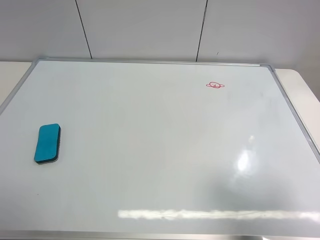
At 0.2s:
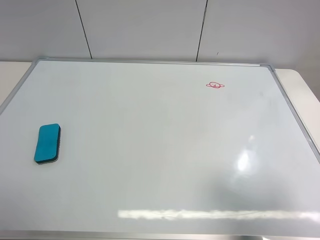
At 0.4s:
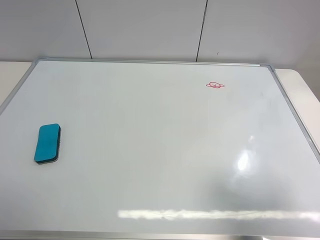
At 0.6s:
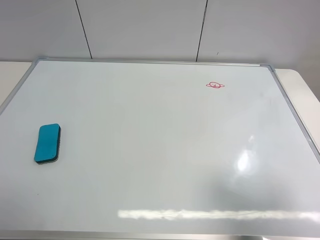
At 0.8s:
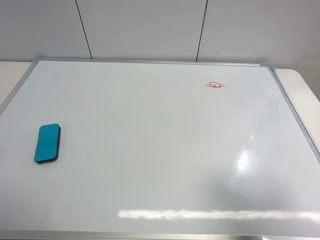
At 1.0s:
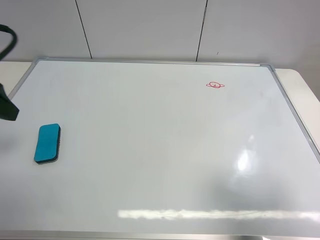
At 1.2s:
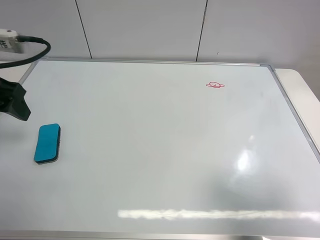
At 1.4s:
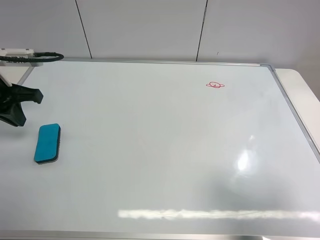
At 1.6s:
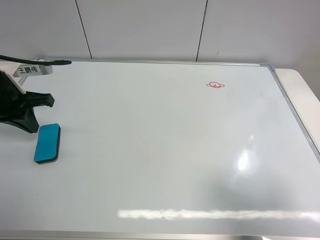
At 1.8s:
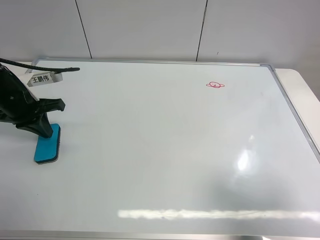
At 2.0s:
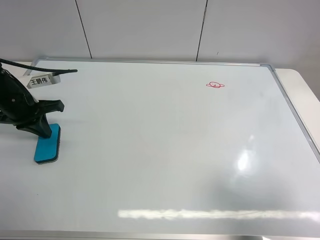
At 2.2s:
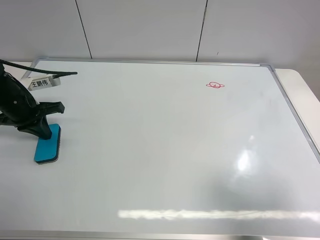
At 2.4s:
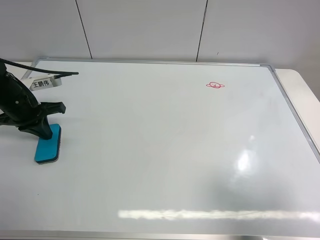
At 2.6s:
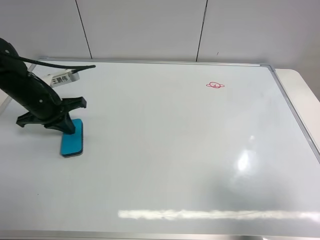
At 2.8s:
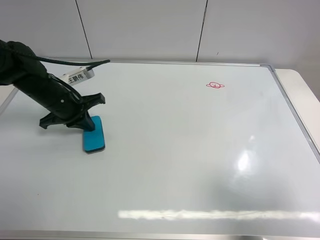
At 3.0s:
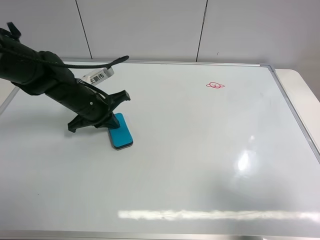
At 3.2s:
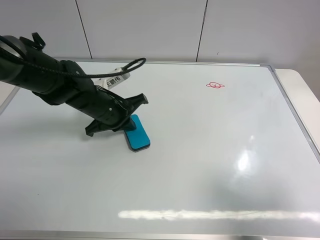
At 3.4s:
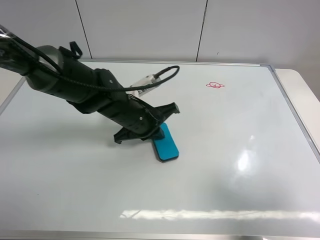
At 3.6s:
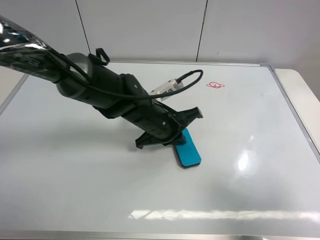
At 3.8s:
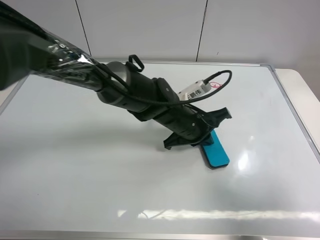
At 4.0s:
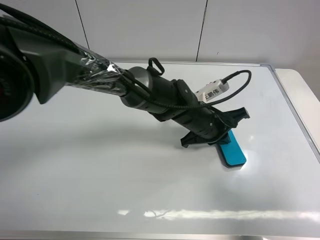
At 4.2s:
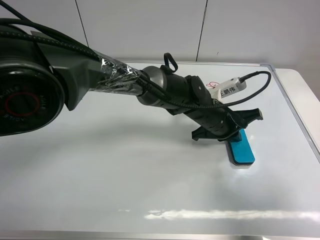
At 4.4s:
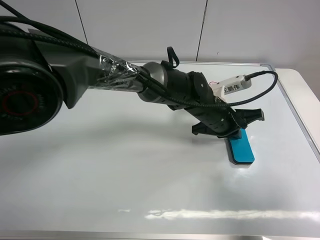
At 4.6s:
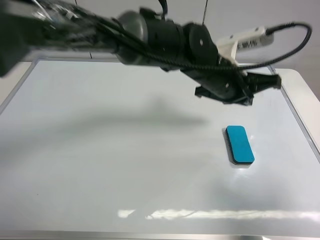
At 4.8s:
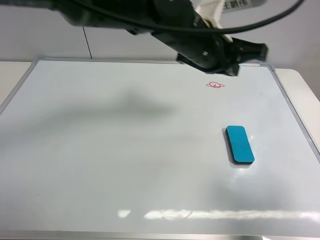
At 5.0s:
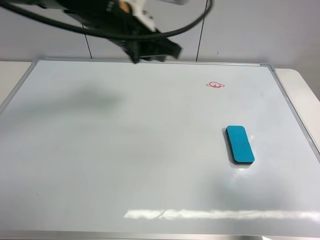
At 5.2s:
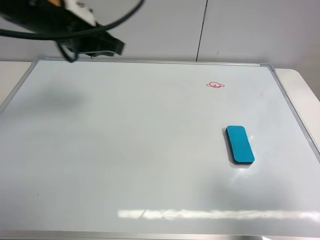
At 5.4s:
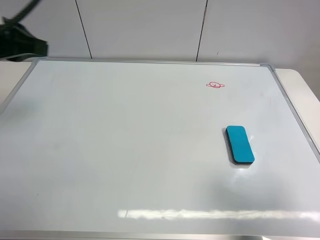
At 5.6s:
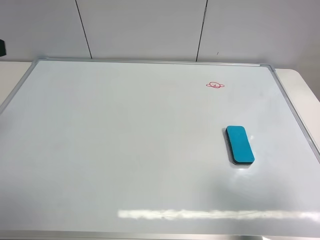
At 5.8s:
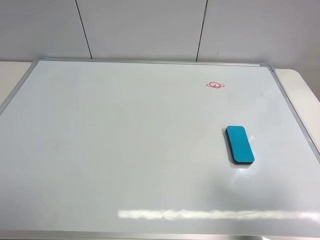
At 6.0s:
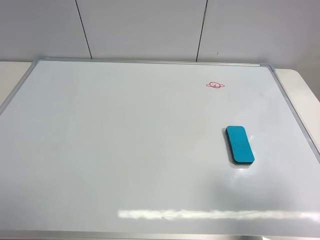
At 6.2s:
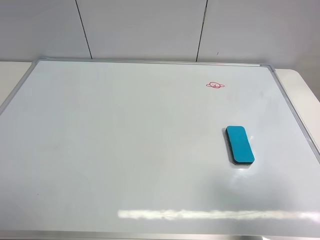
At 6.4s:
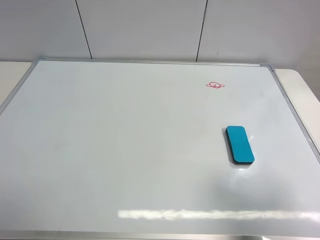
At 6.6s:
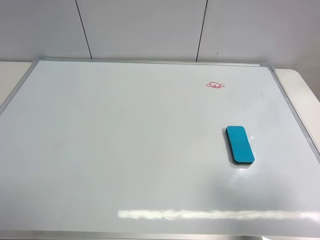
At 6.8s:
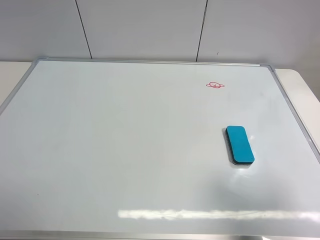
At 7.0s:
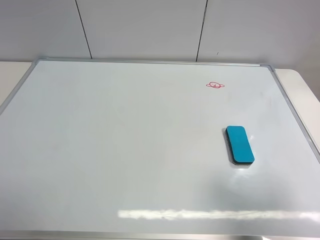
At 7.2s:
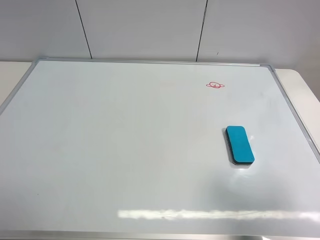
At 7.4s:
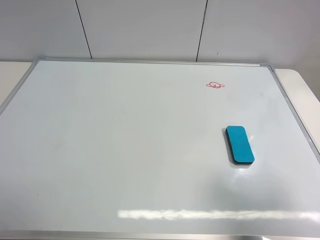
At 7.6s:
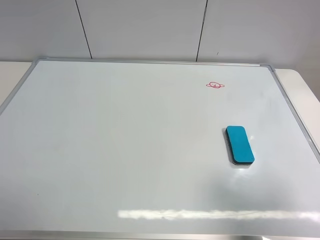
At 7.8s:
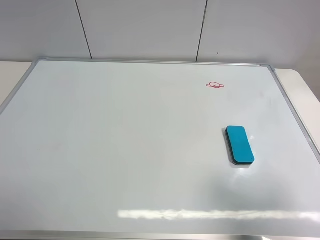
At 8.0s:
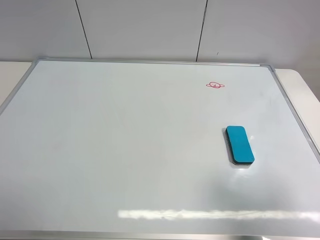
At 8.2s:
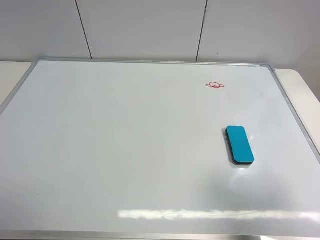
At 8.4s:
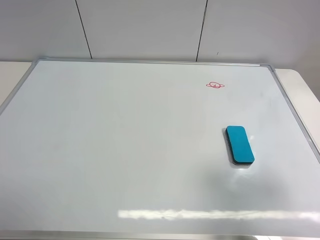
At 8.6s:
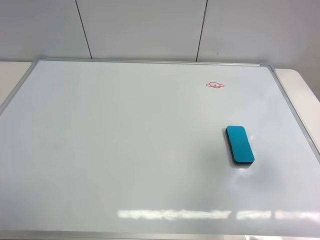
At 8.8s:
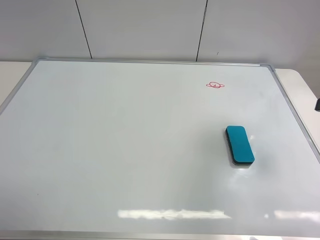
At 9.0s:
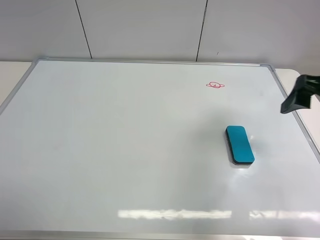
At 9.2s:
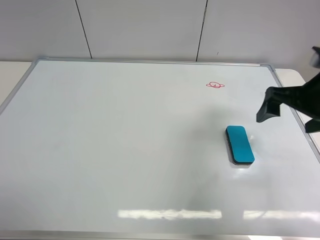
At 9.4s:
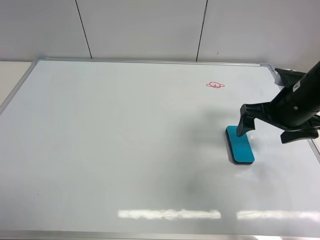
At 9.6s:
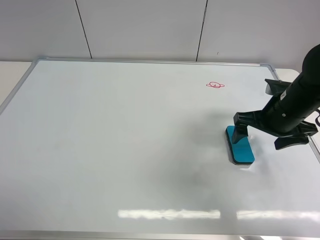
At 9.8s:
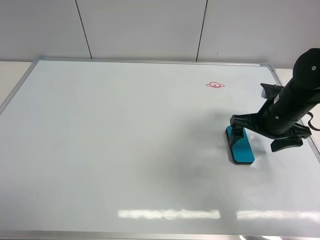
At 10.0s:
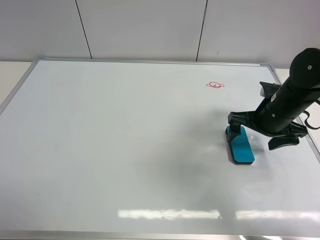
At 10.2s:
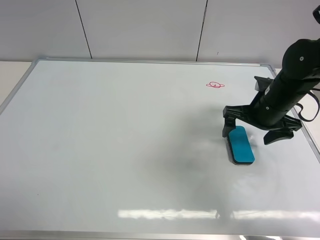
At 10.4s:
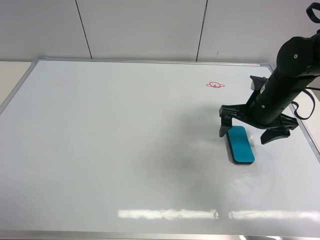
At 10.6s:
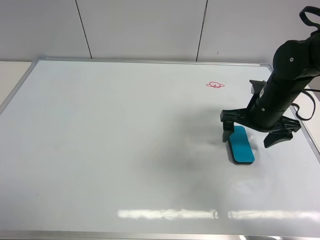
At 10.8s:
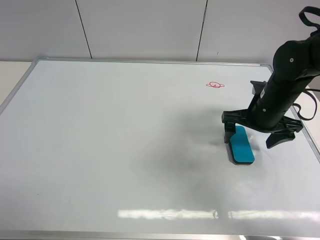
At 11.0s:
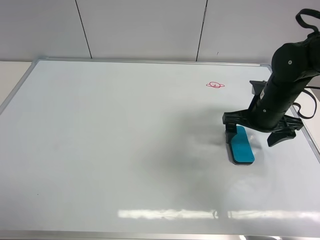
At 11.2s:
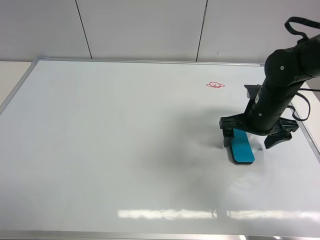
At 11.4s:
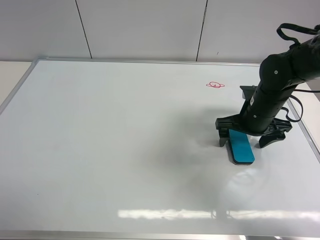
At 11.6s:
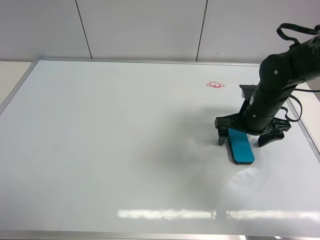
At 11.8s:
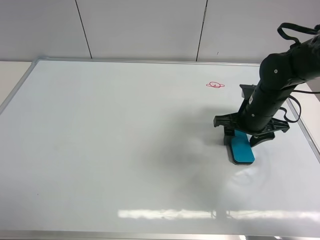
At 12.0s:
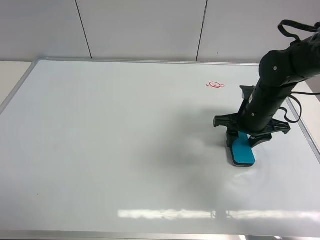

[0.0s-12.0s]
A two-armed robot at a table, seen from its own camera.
Task of the whole recording: use the left gripper to place the eraser in the right, use the right gripper to pick up the eraser, wipe the notes on the whiteboard clean, and then put it down.
Step, 0.0s to 4.4s: Move the board eraser to the right of the whiteboard with left gripper.
0.0s to 1.6s: The left gripper goes about 30 cm forward, and closes up.
1.6s to 3.0s: The left gripper is displaced to the right and downward by about 15 cm.
3.0s to 4.4s: The left gripper goes about 30 cm to the right.
4.4s to 6.0s: The left gripper heads to the left, backward and upward, covering roughly 60 cm, and opens its fingers.
7.6s to 9.0s: The right gripper moves forward, approximately 20 cm.
9.0s to 10.4s: The right gripper travels downward, forward and to the left by about 15 cm.
10.4s to 12.0s: The right gripper closes.

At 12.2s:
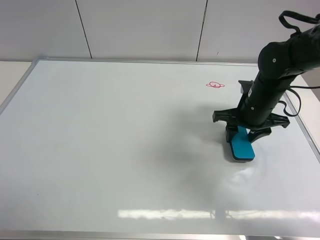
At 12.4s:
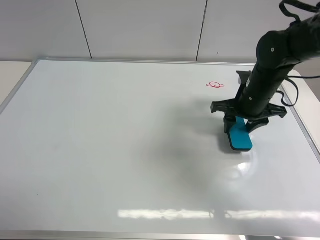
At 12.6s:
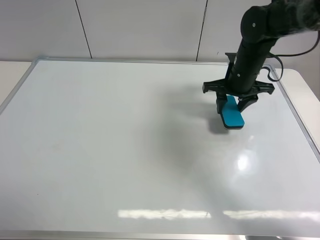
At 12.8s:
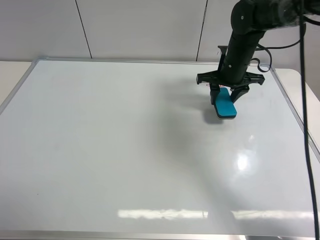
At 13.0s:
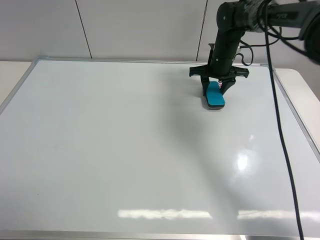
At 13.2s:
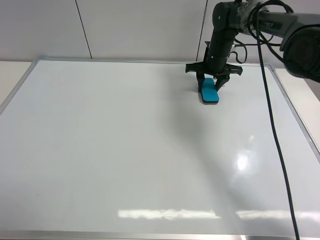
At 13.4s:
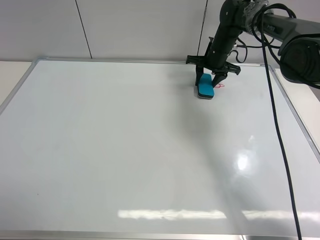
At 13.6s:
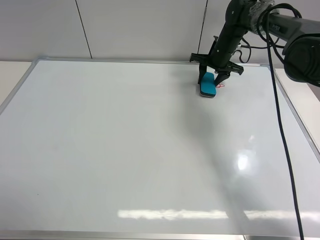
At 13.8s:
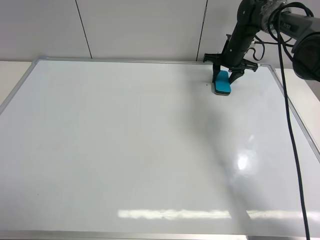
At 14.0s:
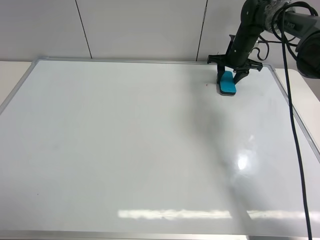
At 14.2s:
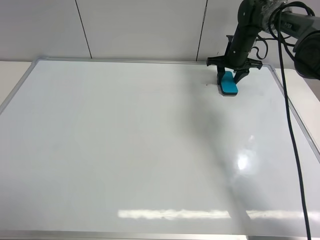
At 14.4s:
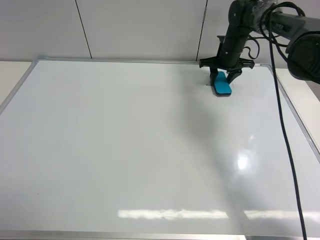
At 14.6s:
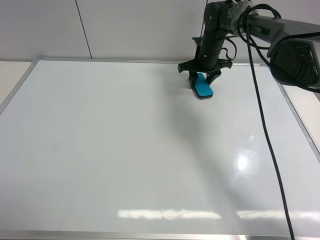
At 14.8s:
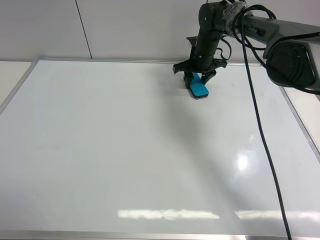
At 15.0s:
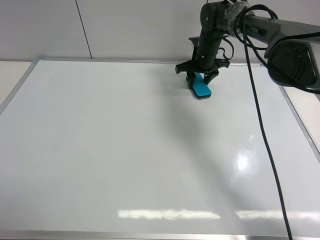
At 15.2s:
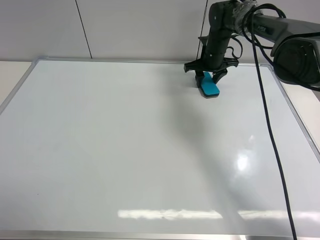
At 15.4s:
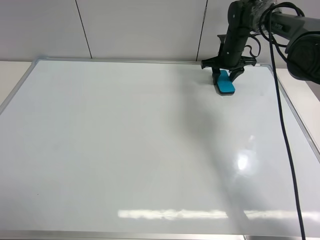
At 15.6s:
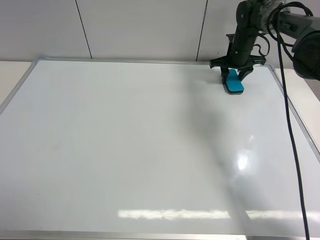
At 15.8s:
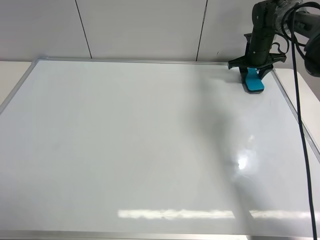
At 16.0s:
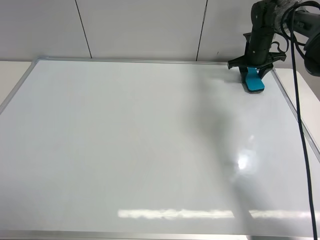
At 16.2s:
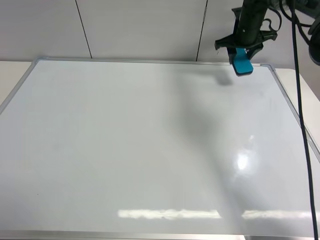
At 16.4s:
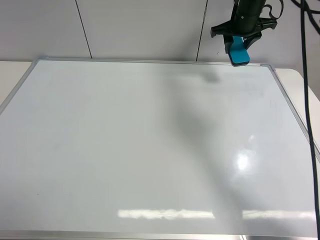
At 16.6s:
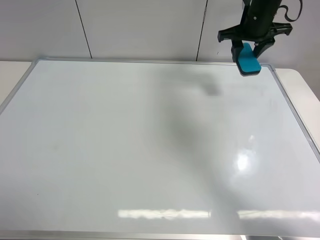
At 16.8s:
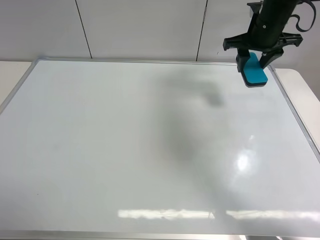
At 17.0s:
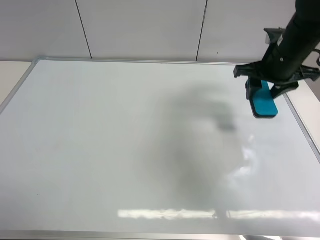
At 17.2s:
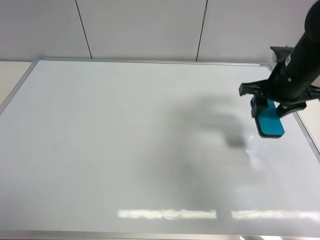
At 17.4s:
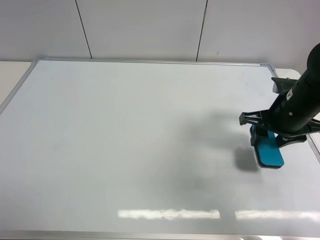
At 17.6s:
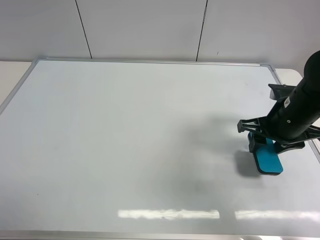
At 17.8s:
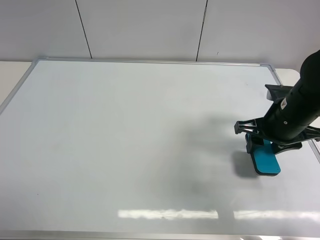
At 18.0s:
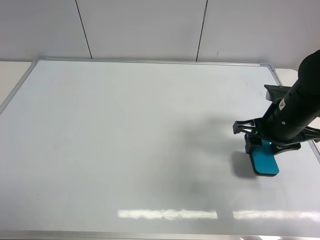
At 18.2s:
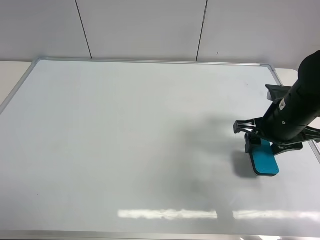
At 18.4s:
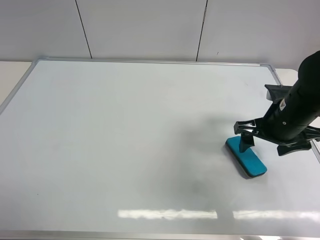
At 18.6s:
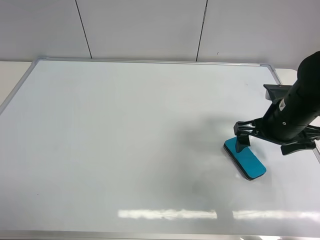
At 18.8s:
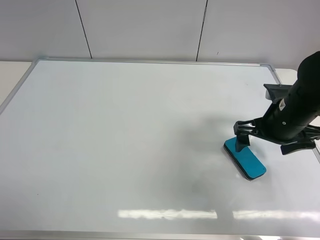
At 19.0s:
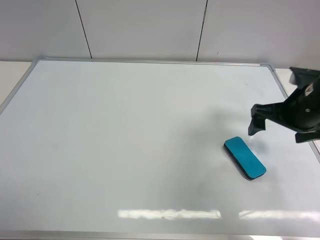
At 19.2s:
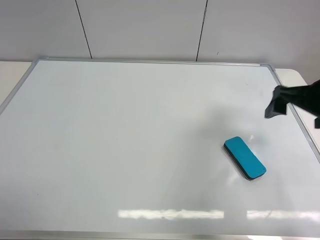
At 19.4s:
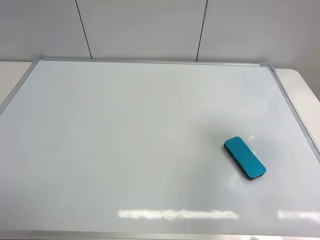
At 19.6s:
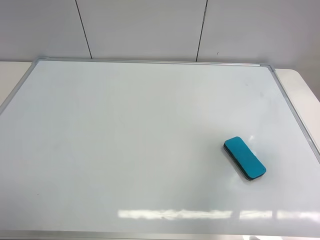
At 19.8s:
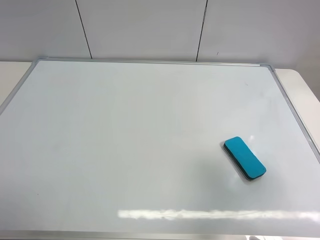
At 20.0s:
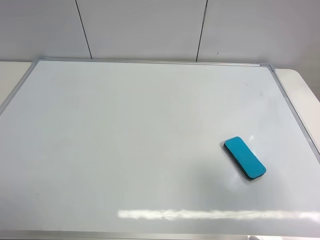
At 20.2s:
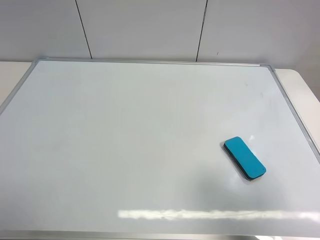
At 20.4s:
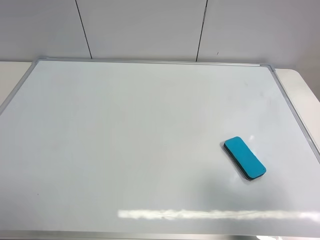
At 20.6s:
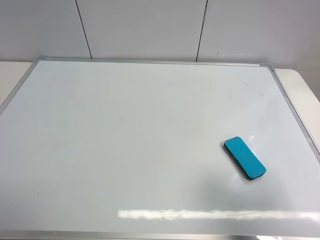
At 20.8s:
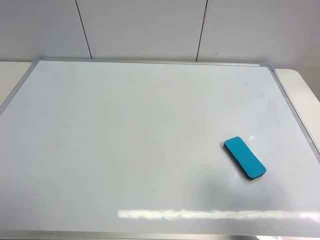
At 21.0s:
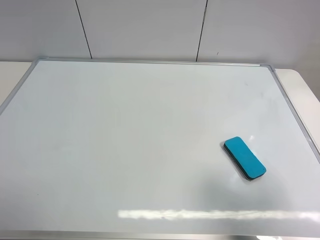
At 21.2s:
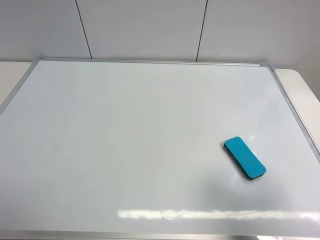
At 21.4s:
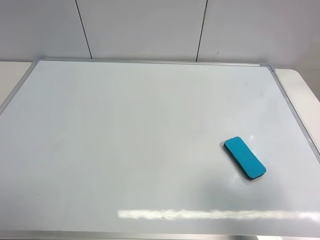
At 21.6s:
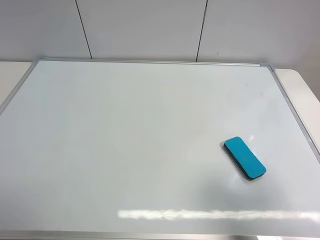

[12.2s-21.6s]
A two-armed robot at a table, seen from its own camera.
Task of the whole recording: use the left gripper to place the eraser in the right, use the right gripper to pick up the eraser, wipe the notes on the whiteboard clean, and then put it down.
Step, 12.4s to 15.8s: Wipe off the writing on the board with right gripper.
Step, 16.0s to 18.4s: Move the board eraser to the right of the whiteboard with right gripper.
12.2s to 13.8s: The right gripper heads forward, covering approximately 25 cm.
13.8s to 15.4s: The right gripper moves some 10 cm to the left and comes back.
15.4s to 17.0s: The right gripper travels backward and upward by about 20 cm.
17.0s to 18.4s: The right gripper shifts about 10 cm backward and downward, and opens its fingers.
18.4s to 20.0s: The right gripper heads backward and upward, covering about 30 cm.
20.0s to 21.6s: The right gripper is displaced downward by some 5 cm.
